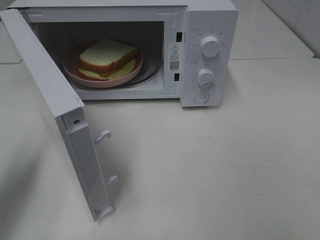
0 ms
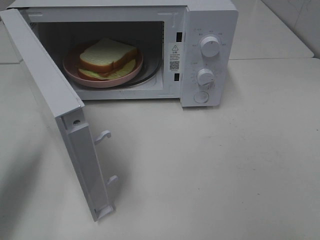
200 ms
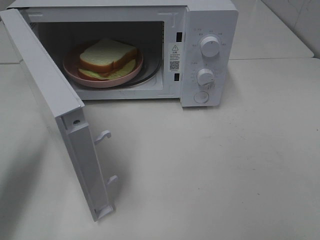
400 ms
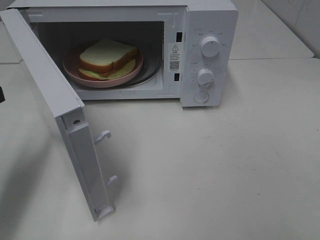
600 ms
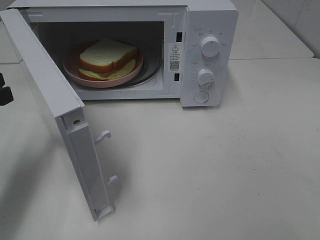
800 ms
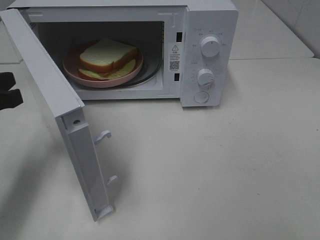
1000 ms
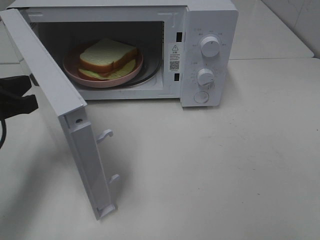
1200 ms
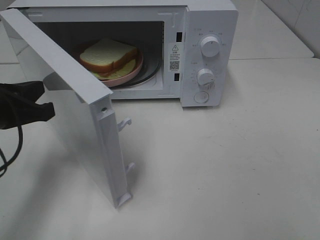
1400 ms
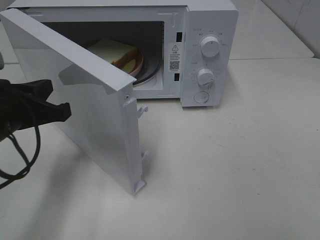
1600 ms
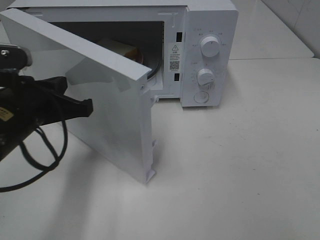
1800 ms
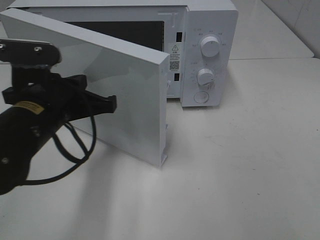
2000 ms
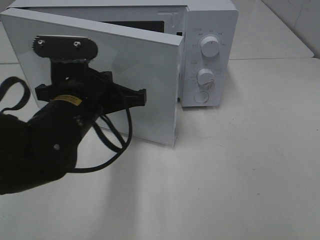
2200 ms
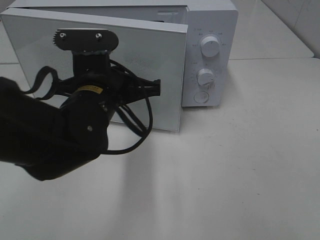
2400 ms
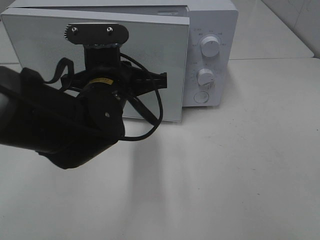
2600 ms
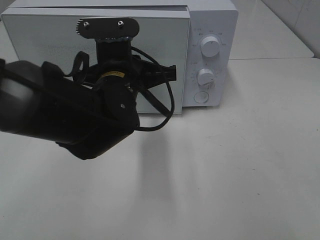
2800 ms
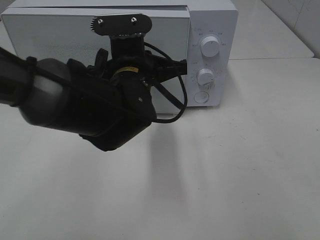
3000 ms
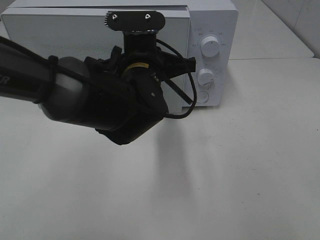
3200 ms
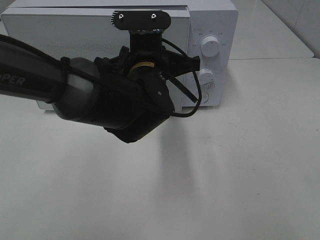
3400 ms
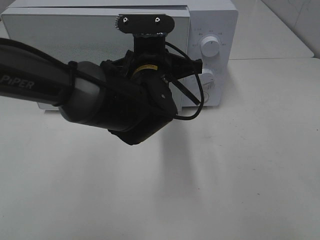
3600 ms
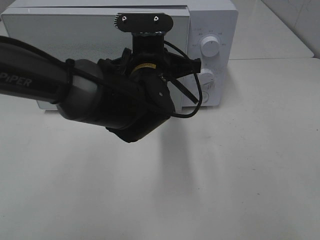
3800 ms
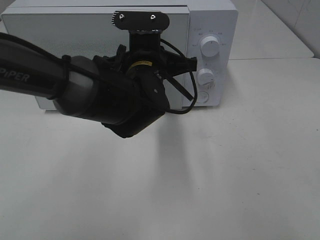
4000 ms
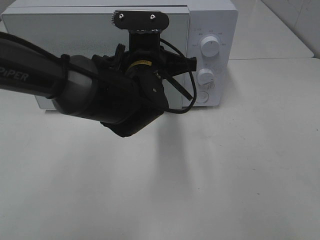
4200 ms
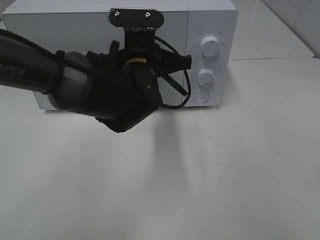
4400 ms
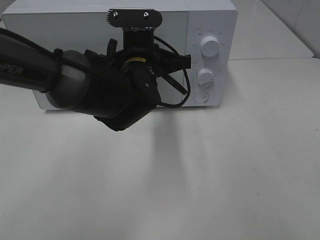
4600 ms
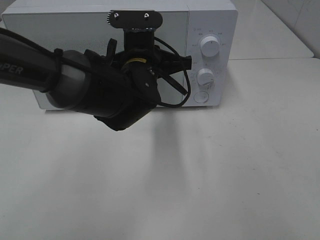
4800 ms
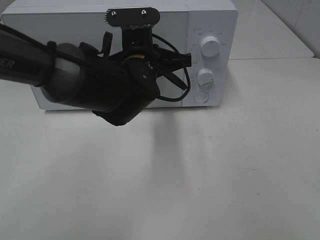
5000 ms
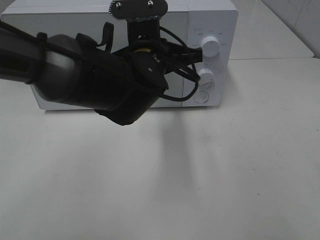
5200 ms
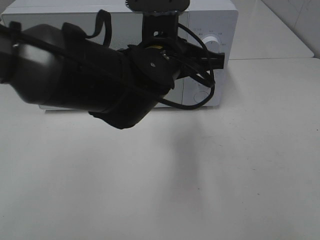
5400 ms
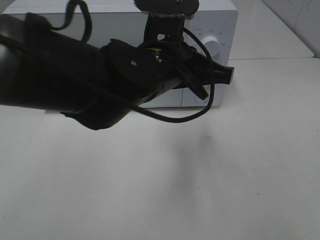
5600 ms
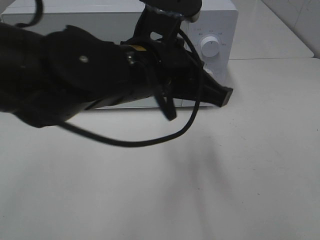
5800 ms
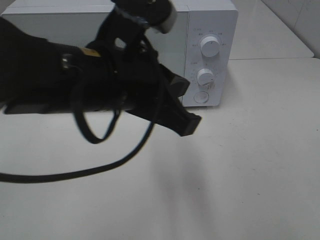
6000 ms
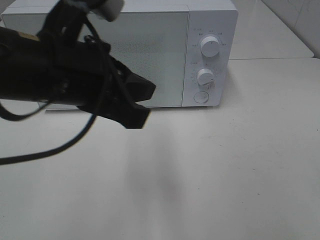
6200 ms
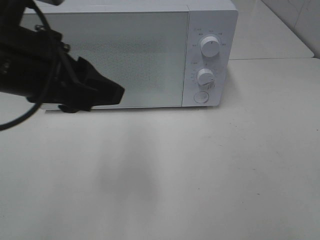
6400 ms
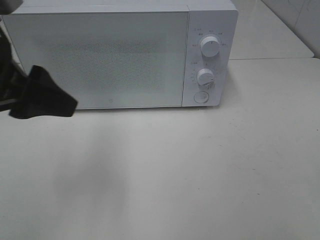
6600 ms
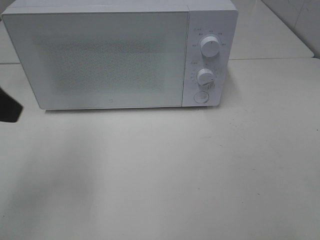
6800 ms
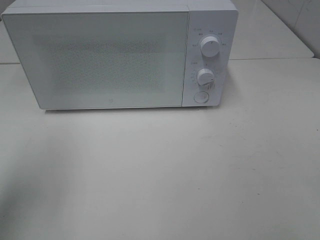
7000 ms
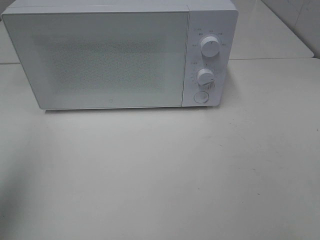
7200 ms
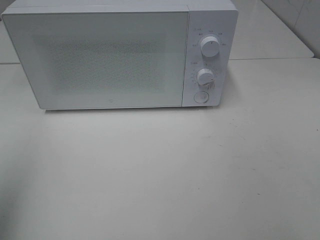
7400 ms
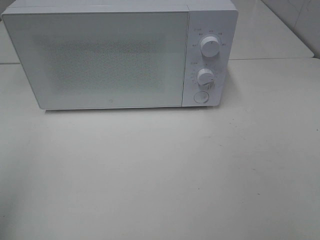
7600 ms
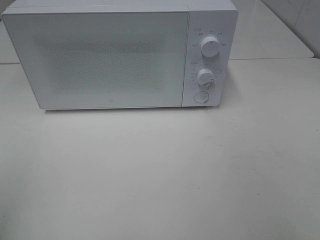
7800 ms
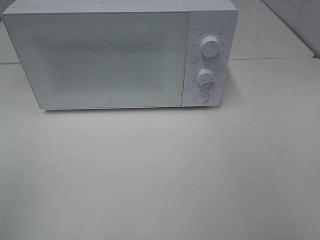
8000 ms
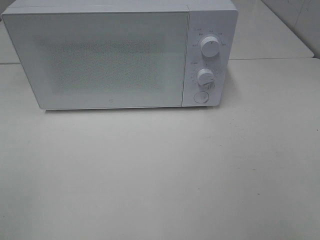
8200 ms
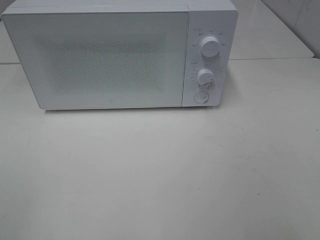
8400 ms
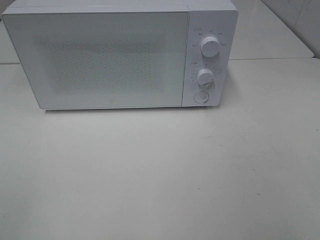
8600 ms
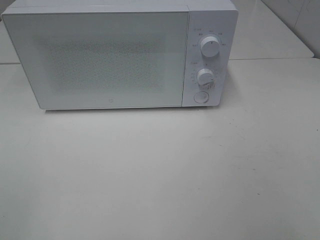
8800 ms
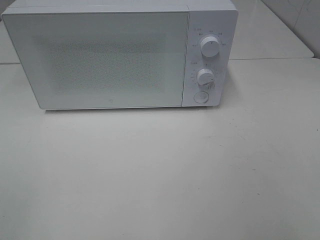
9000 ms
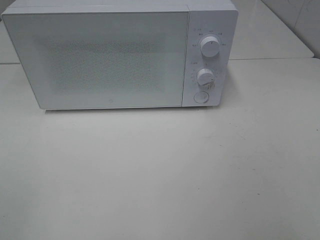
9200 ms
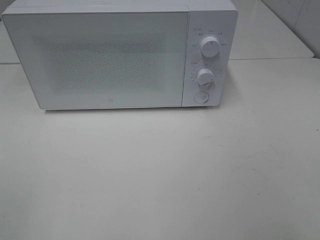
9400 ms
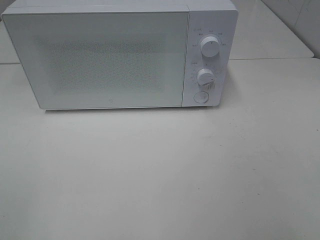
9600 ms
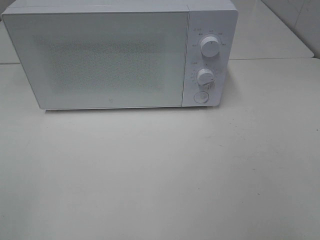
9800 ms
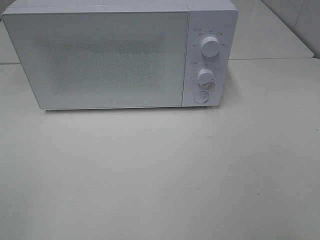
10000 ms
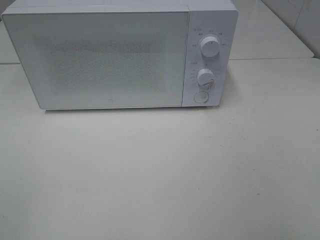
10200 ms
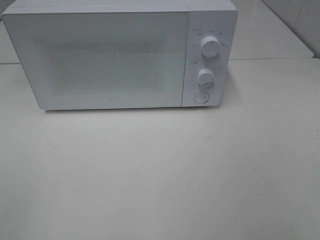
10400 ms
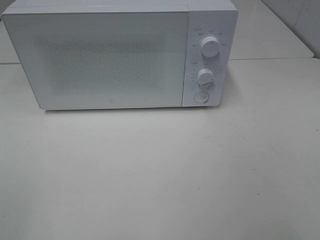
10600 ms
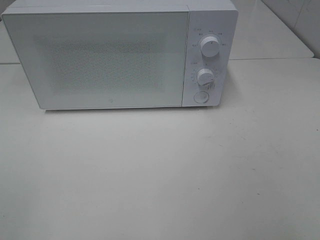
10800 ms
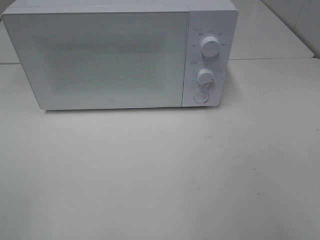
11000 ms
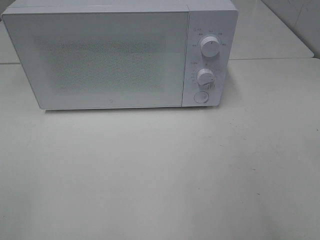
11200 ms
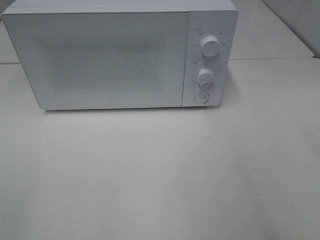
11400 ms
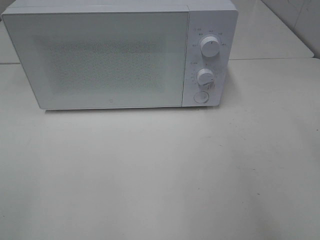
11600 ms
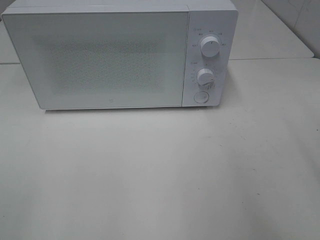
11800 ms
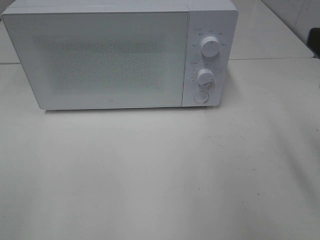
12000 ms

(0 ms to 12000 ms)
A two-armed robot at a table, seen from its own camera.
Task of the whole recording: Heat Sandwich.
Step, 0 ms - 5200 ms: Left hand: close the microwave door.
0 ms - 1600 ms: The left gripper travels to the right and downward by about 10 cm.
1600 ms - 3000 ms: The left gripper shifts roughly 20 cm to the right and forward.
3000 ms - 4400 ms: The grippers stay close to where they were, moving slightly.
4400 ms - 6000 ms: The left gripper shifts some 15 cm backward and upward.
6000 ms - 7600 ms: The left gripper heads to the left and backward, covering approximately 30 cm, and opens its fingers.
9000 ms - 10400 ms: The two grippers keep their place.

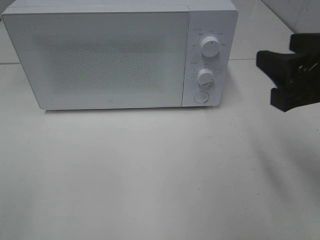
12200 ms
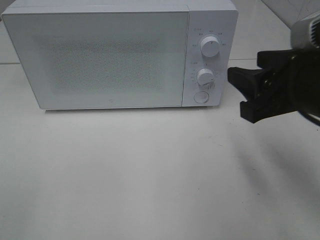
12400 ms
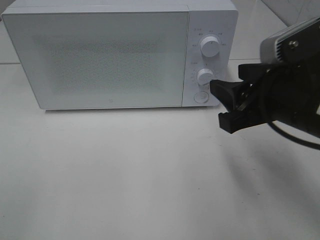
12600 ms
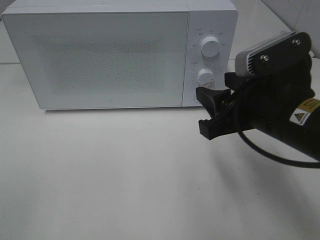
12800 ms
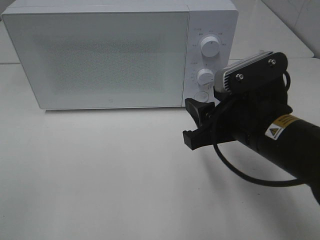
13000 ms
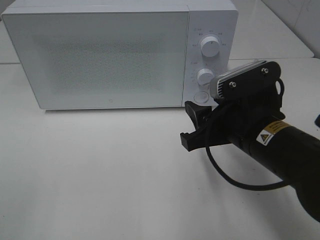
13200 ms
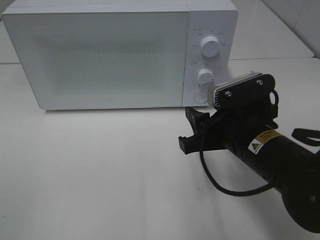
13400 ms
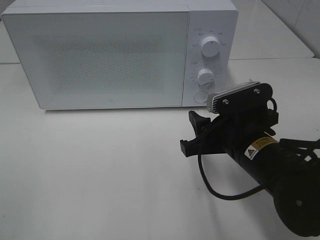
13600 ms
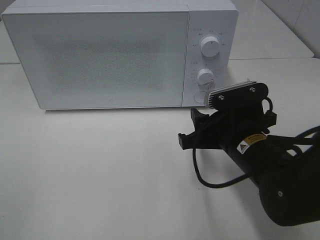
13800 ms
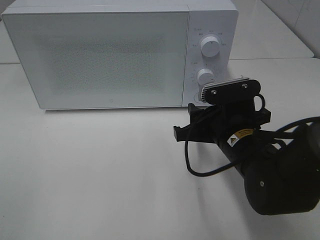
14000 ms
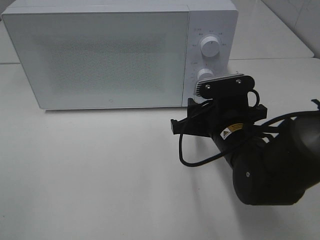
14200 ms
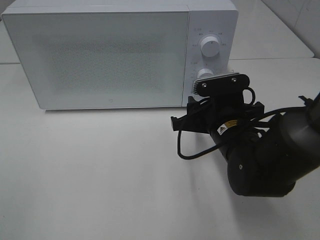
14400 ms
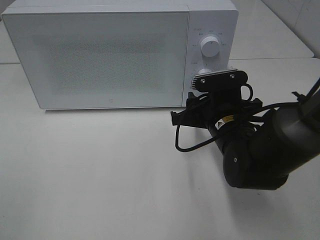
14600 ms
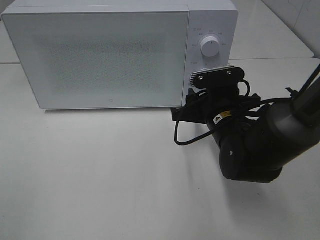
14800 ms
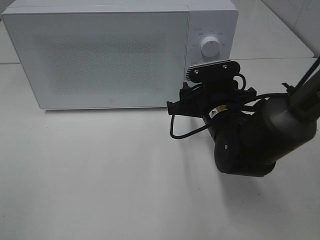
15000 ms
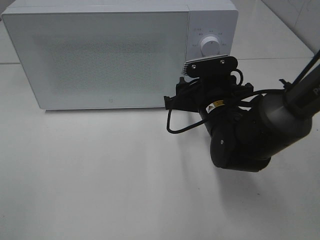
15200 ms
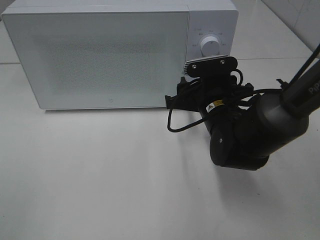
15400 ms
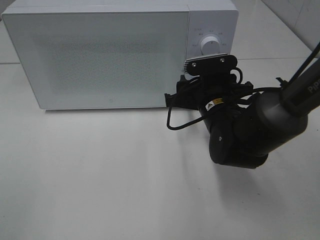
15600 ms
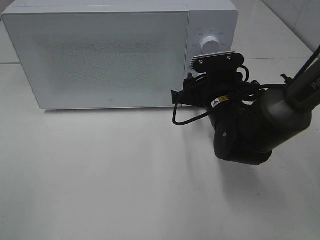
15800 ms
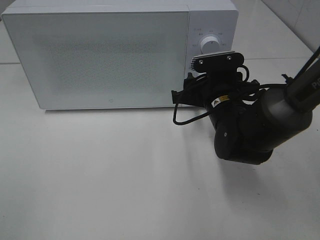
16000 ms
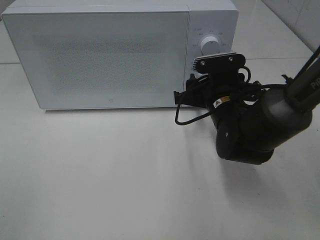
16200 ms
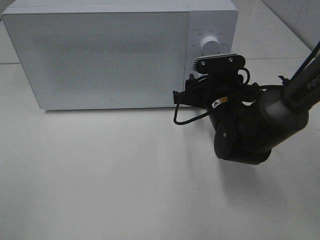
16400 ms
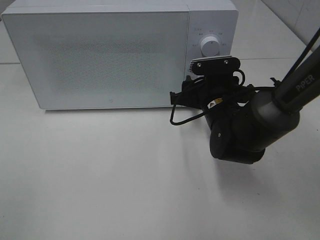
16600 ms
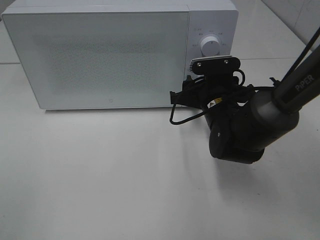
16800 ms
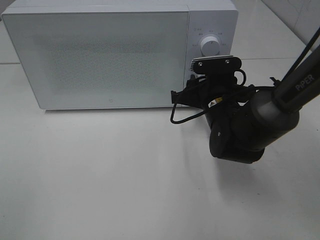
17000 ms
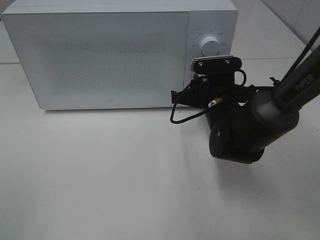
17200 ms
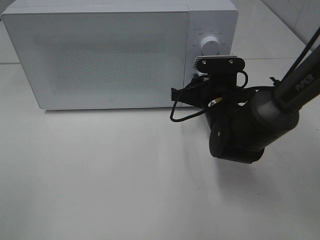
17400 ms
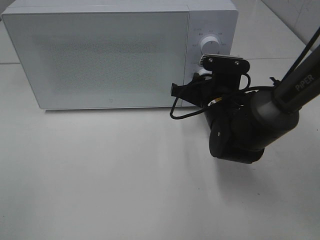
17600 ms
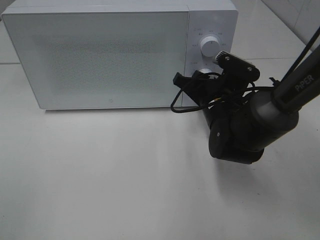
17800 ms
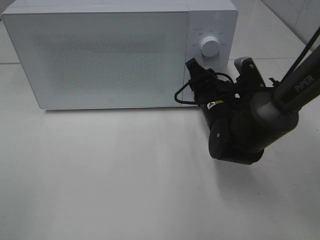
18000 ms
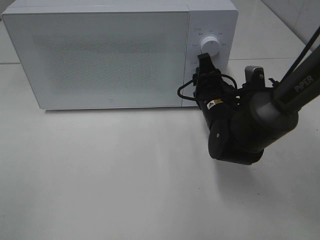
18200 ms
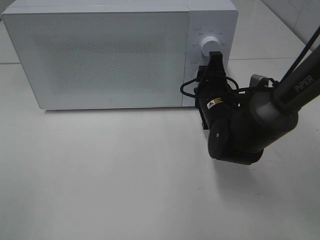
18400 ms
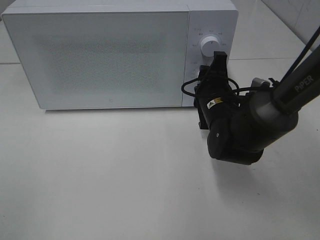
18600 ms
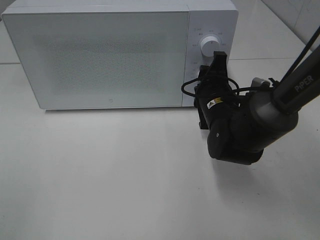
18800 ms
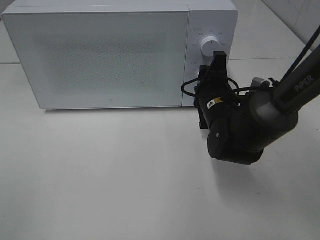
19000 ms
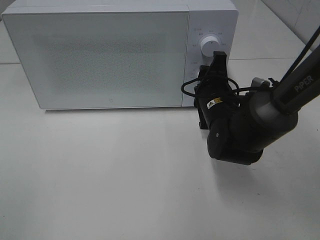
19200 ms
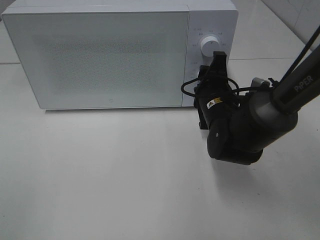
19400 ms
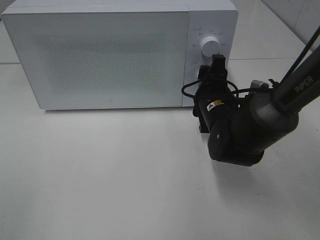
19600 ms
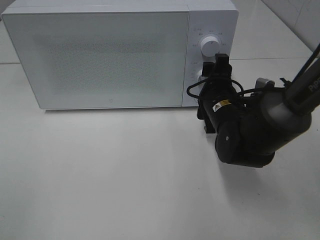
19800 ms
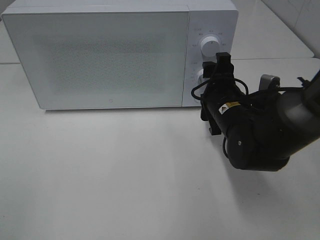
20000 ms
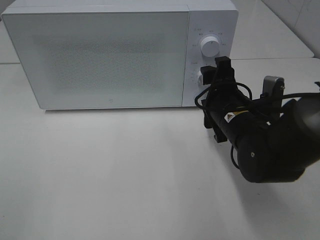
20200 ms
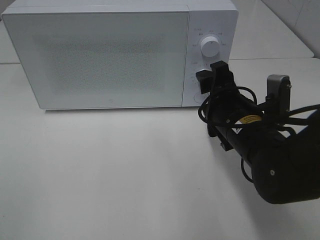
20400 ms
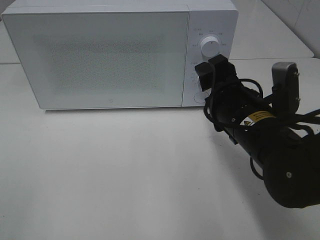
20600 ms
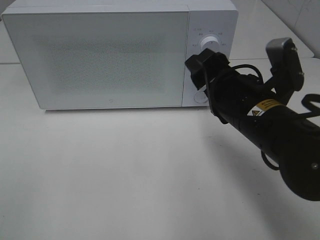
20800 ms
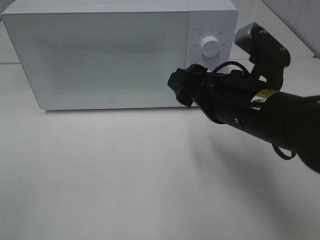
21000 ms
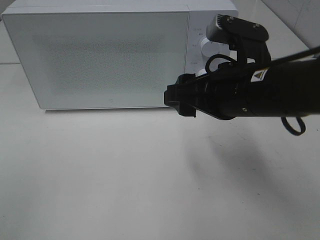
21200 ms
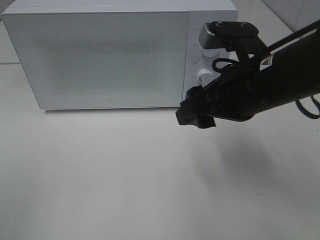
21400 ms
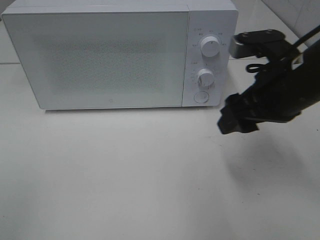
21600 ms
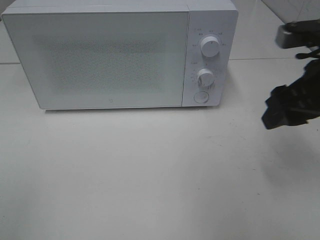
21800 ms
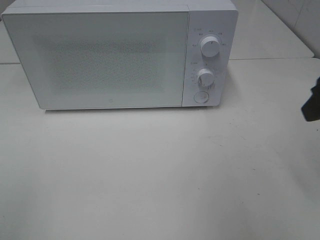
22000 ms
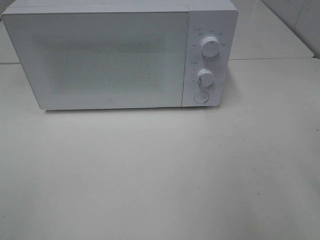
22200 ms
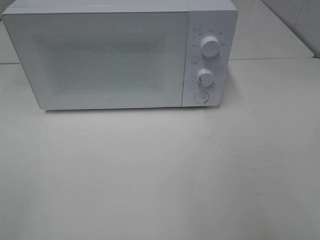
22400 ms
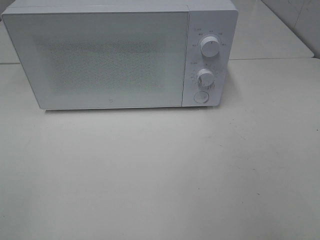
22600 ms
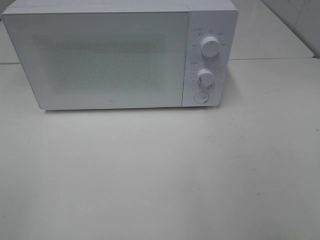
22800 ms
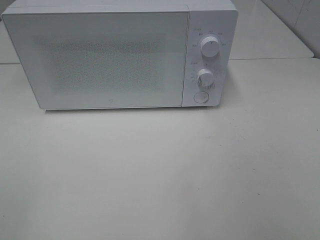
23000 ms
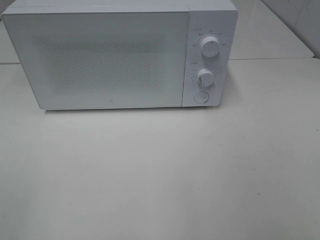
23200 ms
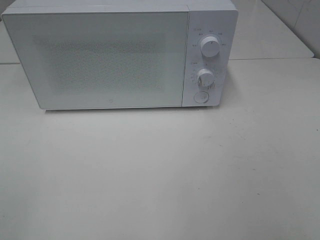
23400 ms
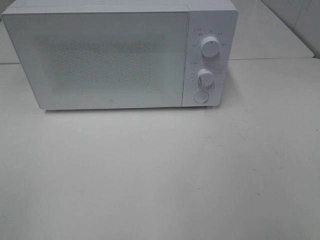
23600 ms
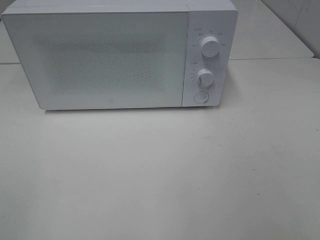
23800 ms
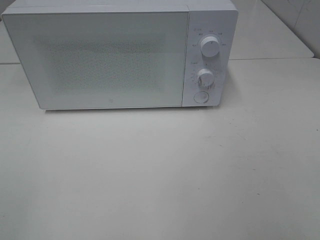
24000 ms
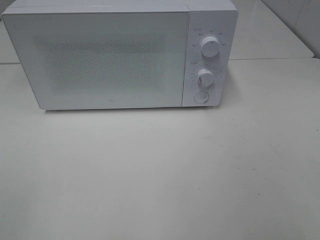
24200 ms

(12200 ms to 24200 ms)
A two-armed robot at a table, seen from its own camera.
Task of the whole recording: Heat Sandwich.
Step, 12200 ms - 20000 ms: Right hand: twist timer button.
12200 ms - 13800 ms: The right gripper shifts some 15 cm downward and to the left.
13800 ms - 15200 ms: The right gripper moves forward, some 10 cm.
15200 ms - 16600 ms: The grippers move only a little.
18200 ms - 19800 ms: The right gripper opens.
19800 ms - 21200 ms: The right gripper moves upward and backward, about 15 cm.
21200 ms - 22600 ms: The right gripper heads to the right and backward, covering approximately 25 cm.
